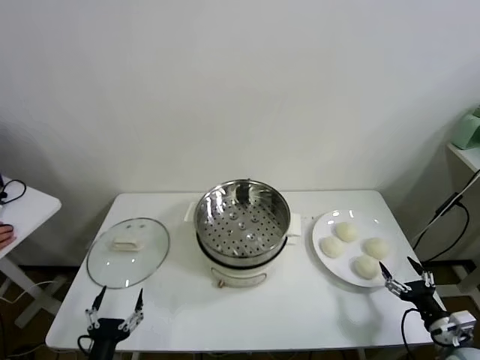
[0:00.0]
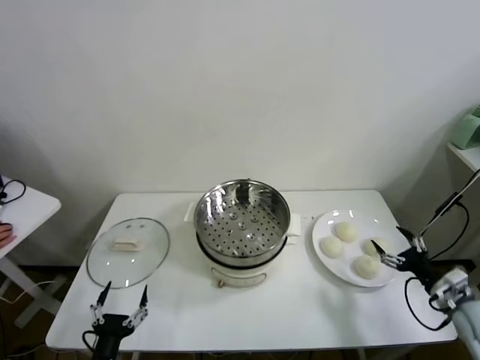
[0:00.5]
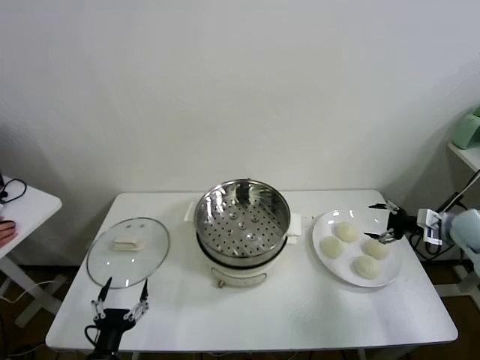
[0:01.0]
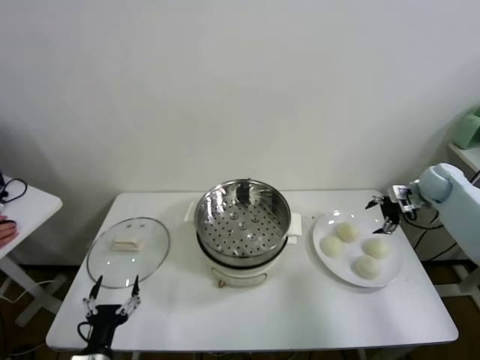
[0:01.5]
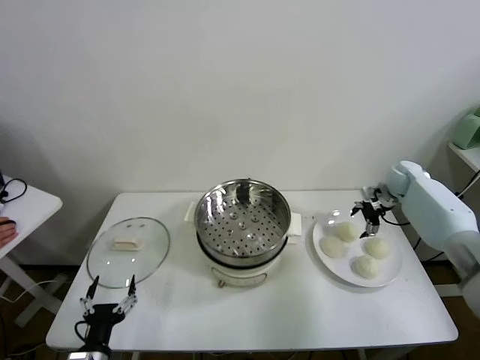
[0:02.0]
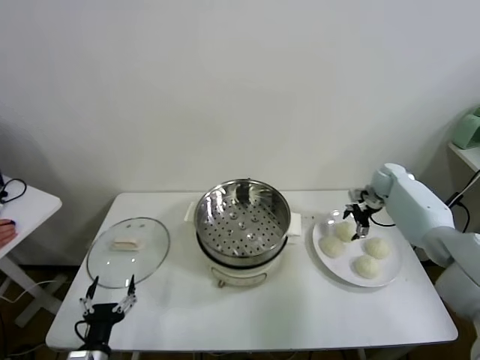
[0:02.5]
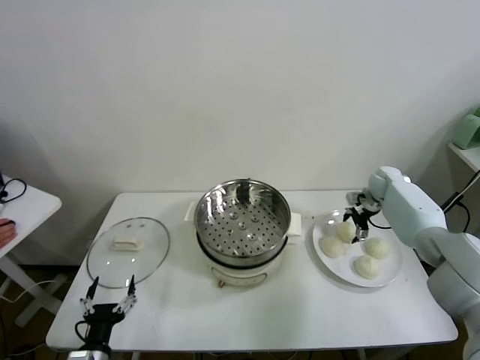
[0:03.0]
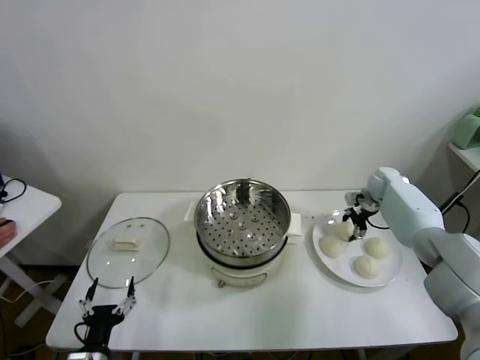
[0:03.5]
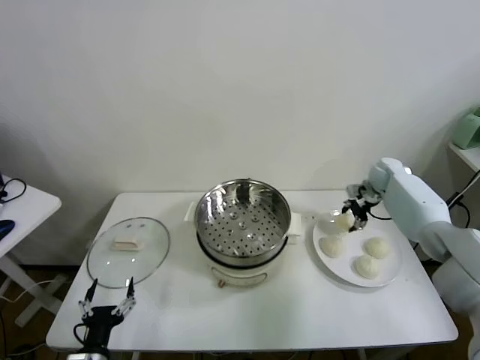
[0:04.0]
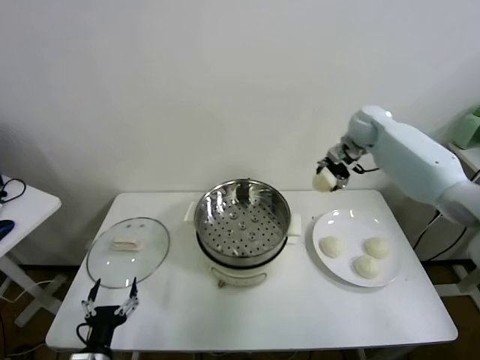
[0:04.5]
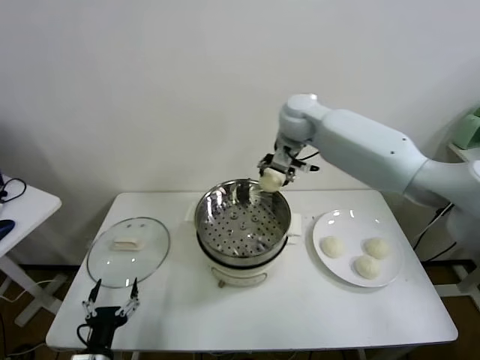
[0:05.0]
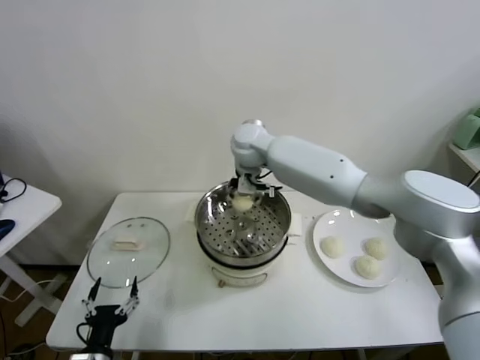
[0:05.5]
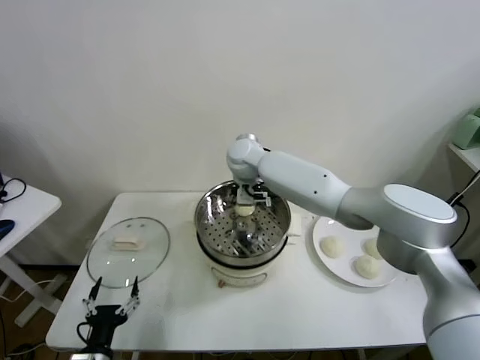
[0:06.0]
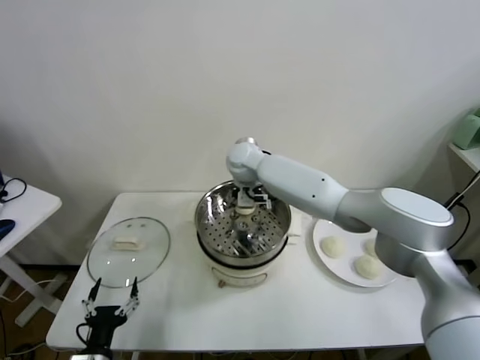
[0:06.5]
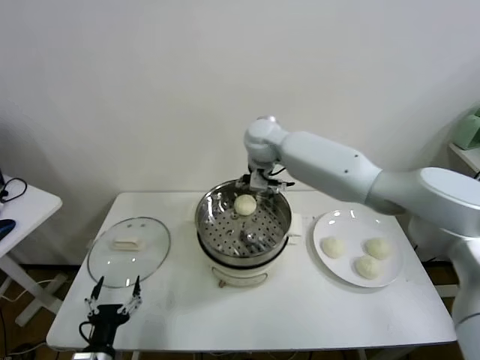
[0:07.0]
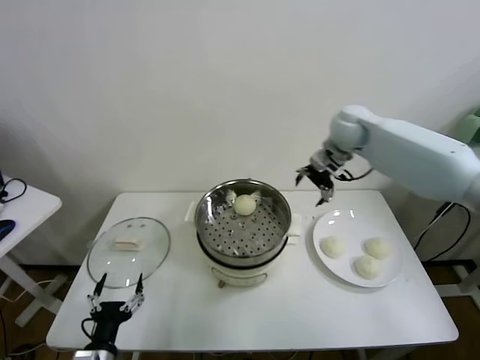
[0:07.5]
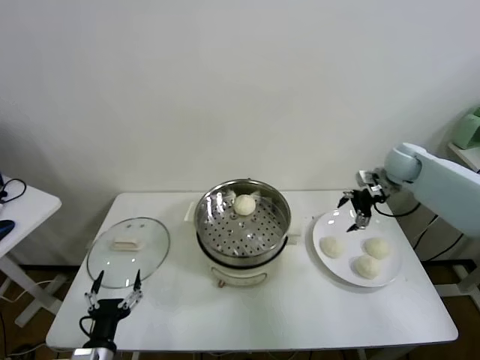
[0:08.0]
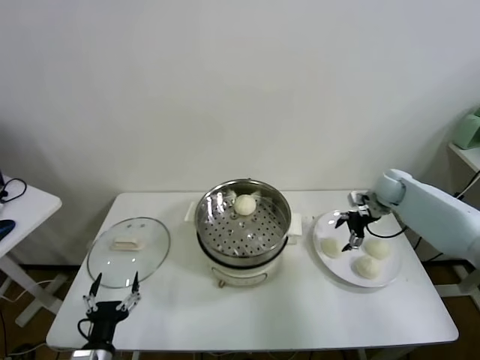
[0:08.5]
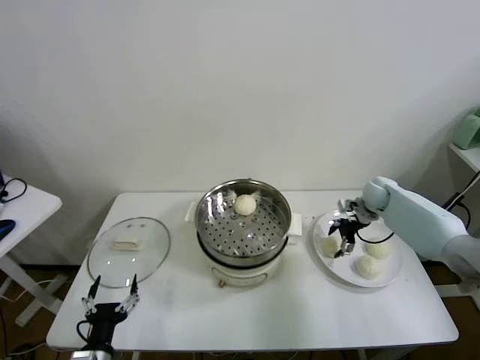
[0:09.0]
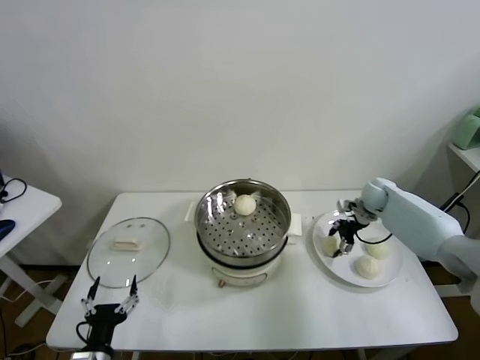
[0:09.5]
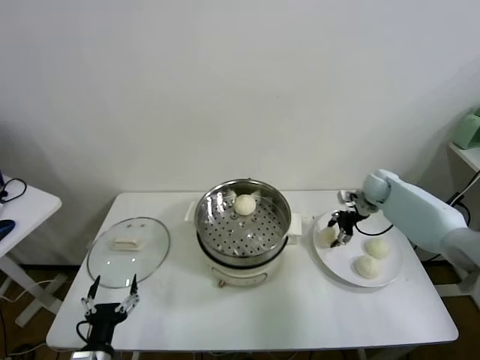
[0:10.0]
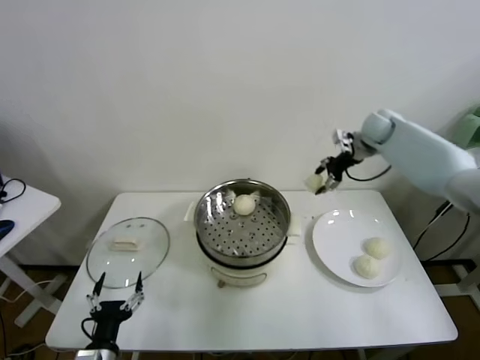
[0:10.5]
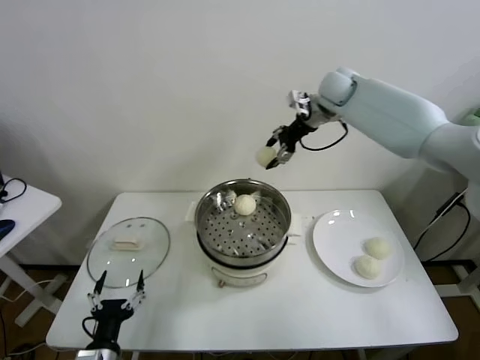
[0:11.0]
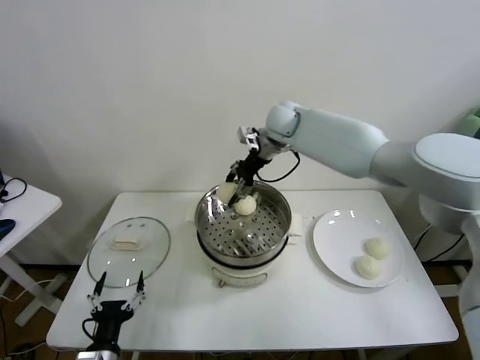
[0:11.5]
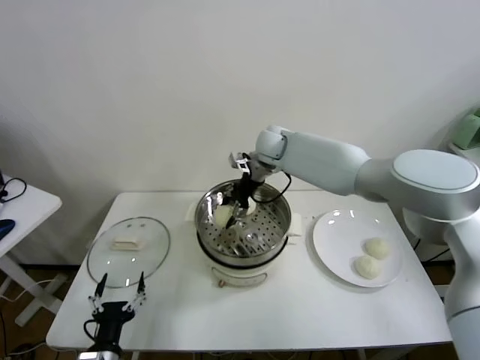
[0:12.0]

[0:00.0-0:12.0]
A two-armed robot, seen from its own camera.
Task of the whole recording: take steamed baozi put them in steamer.
Step, 0:00.0 to 0:03.5: Grasp the baozi in the plate with right gripper.
Step, 0:04.0 to 0:06.5: Place the baozi on the steamer with right gripper.
Step, 0:07.0 to 0:09.0: Grasp the baozi in the plate with right gripper.
0:02.0 to 0:04.0: The right gripper shifts by roughly 5 cm, and closes.
0:04.0 to 0:06.0: The right gripper is displaced to the left by some 40 cm.
0:06.0 to 0:08.0: The right gripper heads to the right, covering about 40 cm, and opens up.
0:08.0 to 0:10.0: The right gripper goes some 5 cm downward, and closes.
0:10.0 to 0:12.0: The right gripper is displaced to the left by roughly 30 cm.

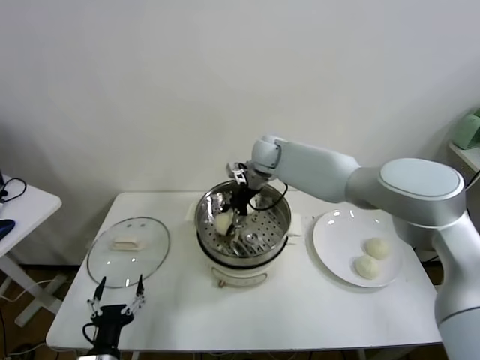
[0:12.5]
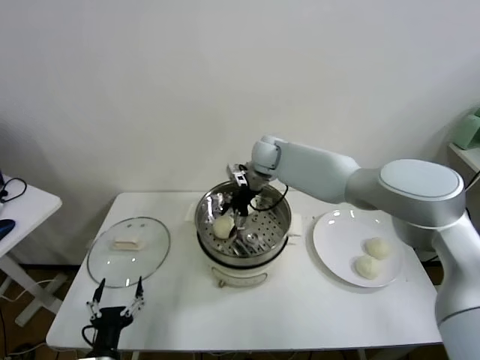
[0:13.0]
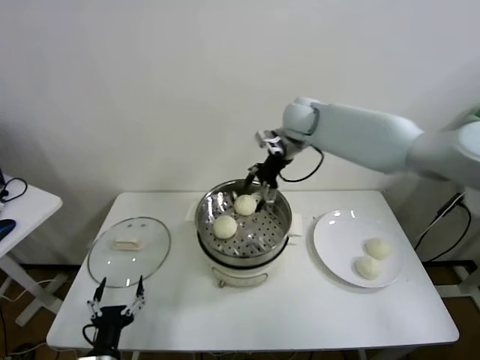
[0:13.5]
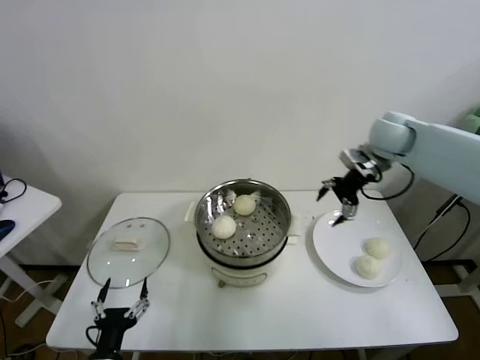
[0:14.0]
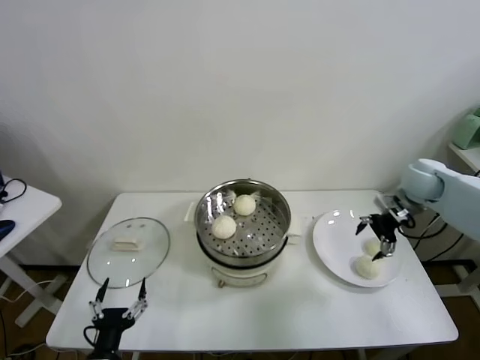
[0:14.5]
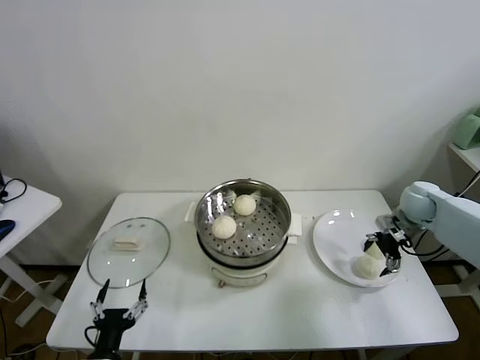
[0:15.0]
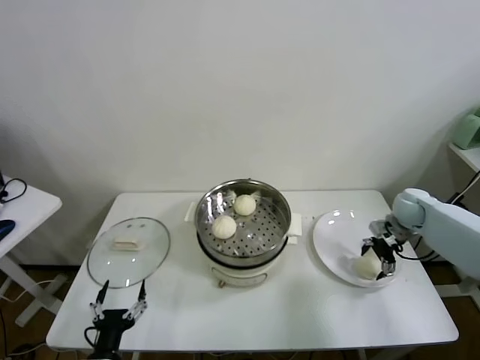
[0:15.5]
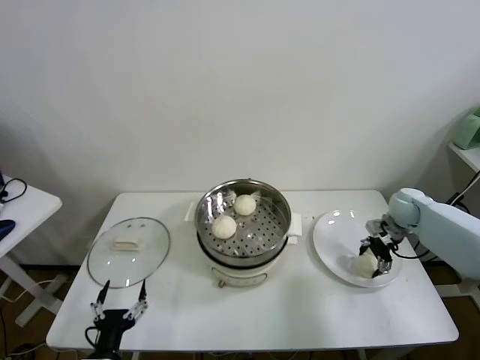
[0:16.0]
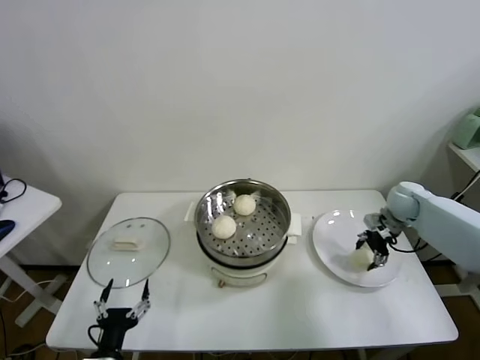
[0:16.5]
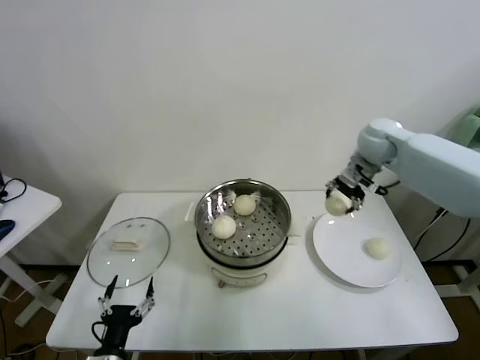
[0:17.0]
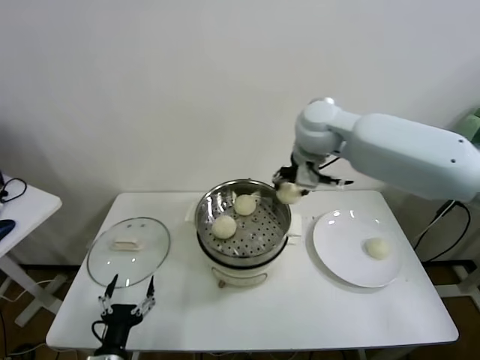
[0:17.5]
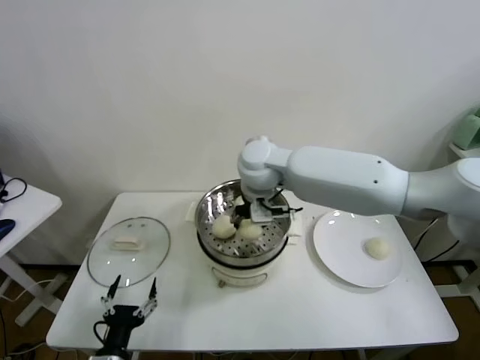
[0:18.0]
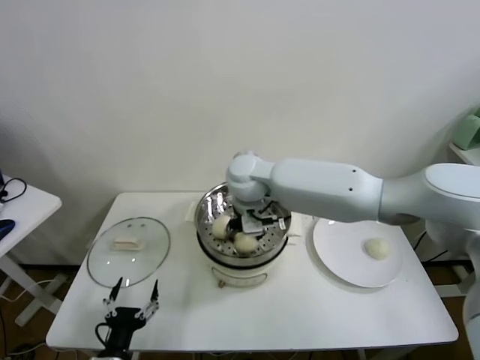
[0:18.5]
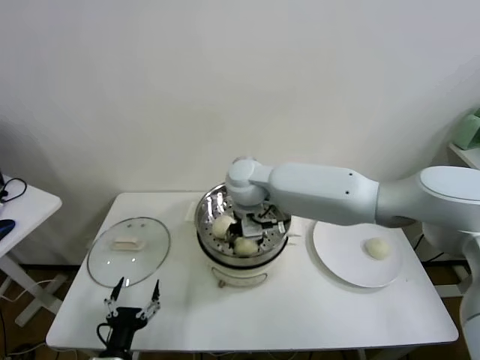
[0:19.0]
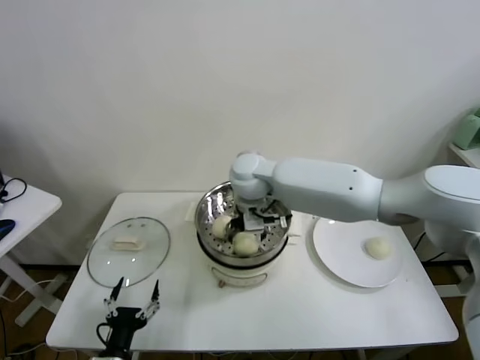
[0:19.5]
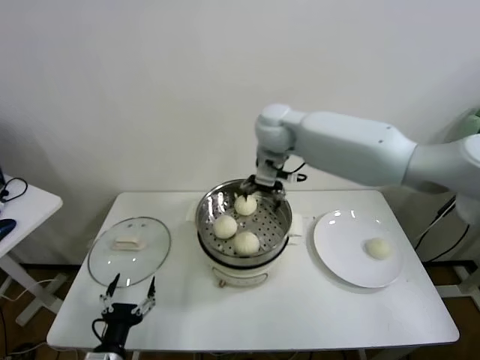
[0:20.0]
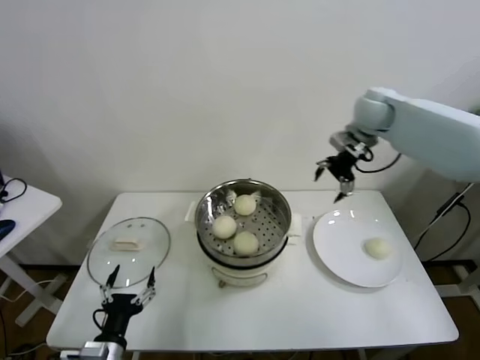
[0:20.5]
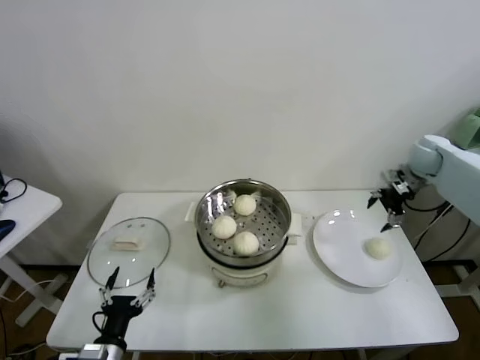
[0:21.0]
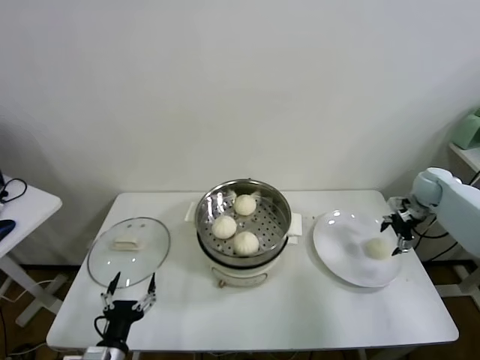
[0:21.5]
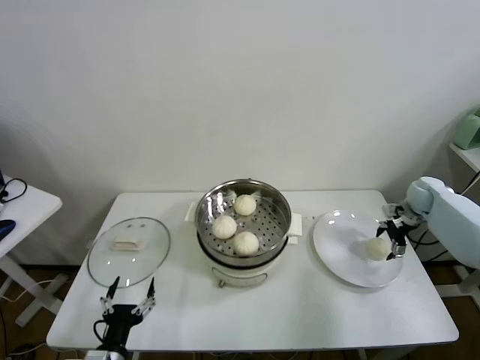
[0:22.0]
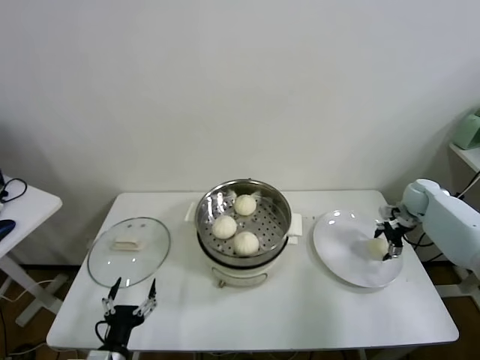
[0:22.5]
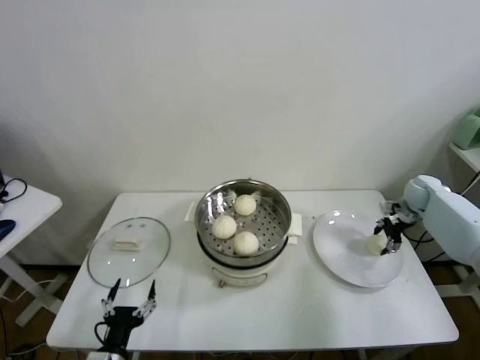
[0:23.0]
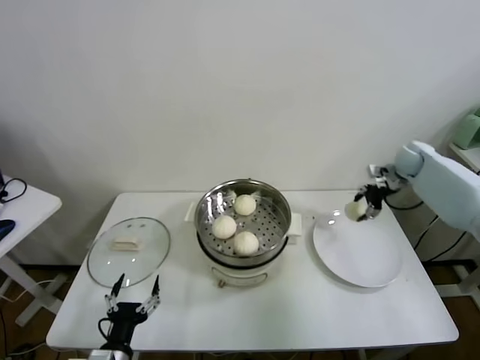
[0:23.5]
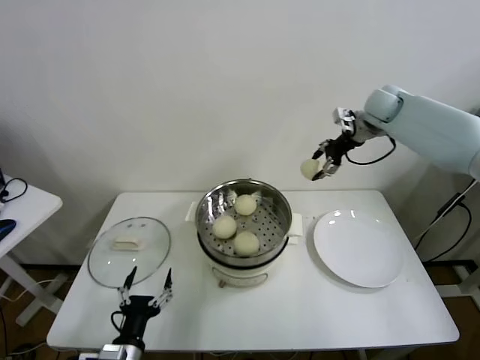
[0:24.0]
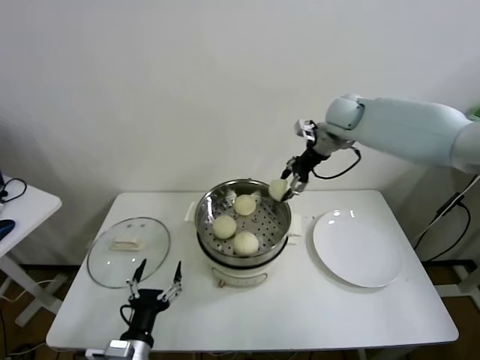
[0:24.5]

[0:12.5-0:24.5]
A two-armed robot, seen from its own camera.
Task of the whole recording: take steamed baozi put them in steamer.
Step, 0:13.5 to 0:16.0: Grasp the baozi in the plate with right gripper.
Step, 0:16.5 to 0:19.5: Place the baozi on the steamer with right gripper.
Step, 0:20.0 to 0:22.5: Grasp the baozi in the plate with right gripper.
0:12.5 to 0:14.5: The right gripper shifts some 35 cm to the right, and opens its fingers.
0:14.5 to 0:16.5: The right gripper moves downward, roughly 5 cm, and closes up.
0:16.5 to 0:18.5: The right gripper shifts some 40 cm to the left.
0:18.5 to 0:20.5: The right gripper moves to the right, some 30 cm, and opens.
0:20.5 to 0:22.5: The right gripper travels downward and to the right by about 30 cm.
0:22.5 to 0:24.5: The left gripper shifts about 5 cm to the right. Meanwhile the right gripper moves to the left and upward, approximately 35 cm, and closes its fingers.

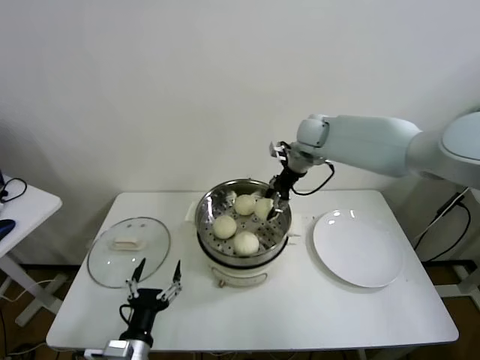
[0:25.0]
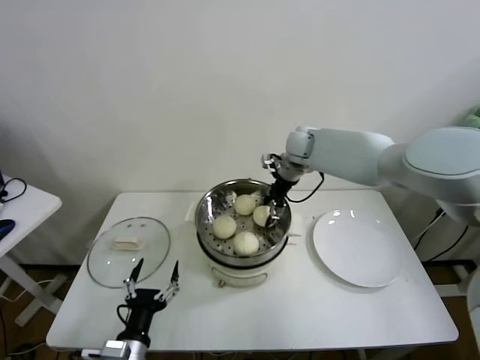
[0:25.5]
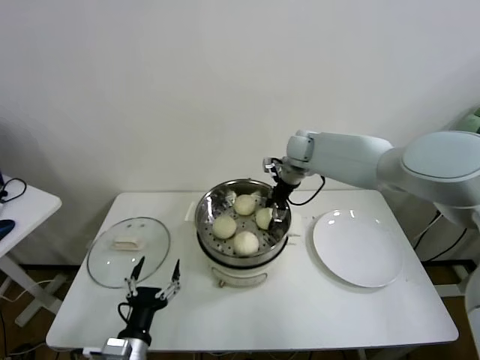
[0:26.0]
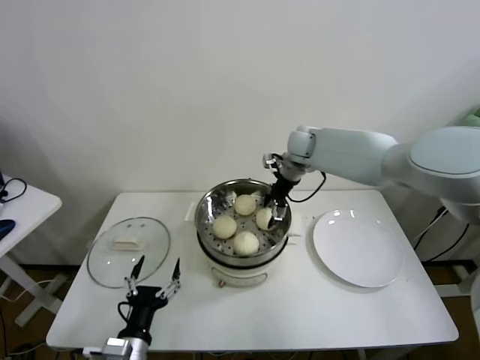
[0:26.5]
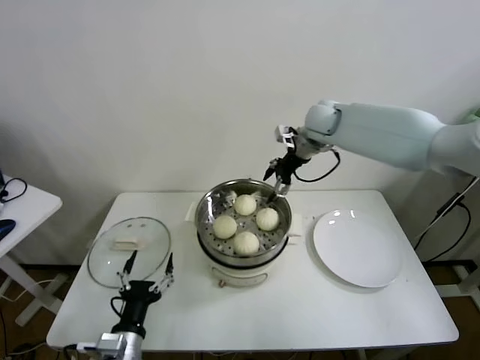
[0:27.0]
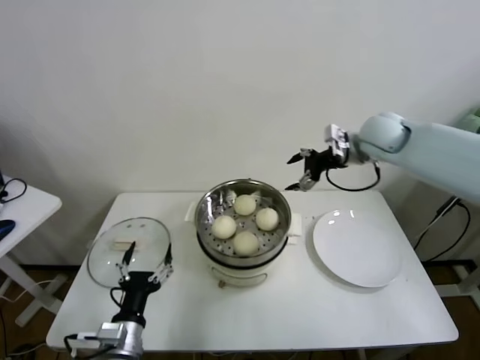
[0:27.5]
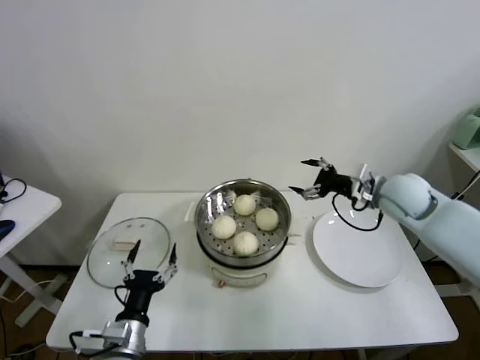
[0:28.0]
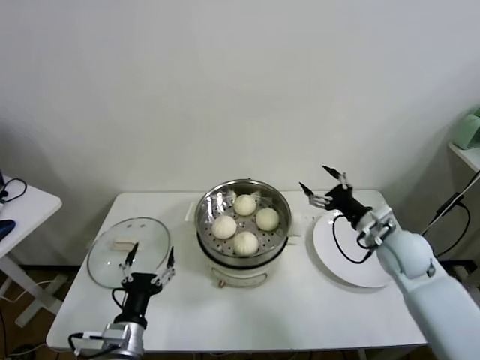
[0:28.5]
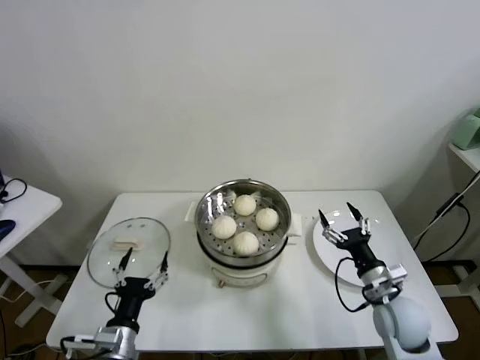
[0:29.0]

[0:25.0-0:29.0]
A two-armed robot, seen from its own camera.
Task of the whole recording: take steamed baozi put them in steamer.
0:25.0 to 0:27.0: The right gripper opens its fingers.
0:27.0 to 0:29.0: The right gripper shifts about 40 cm backward, downward and to the right.
